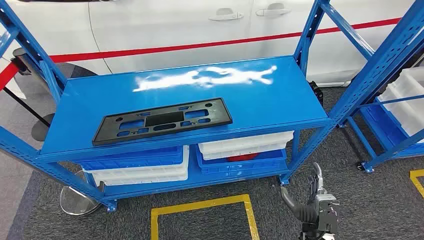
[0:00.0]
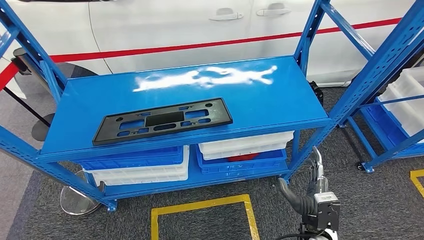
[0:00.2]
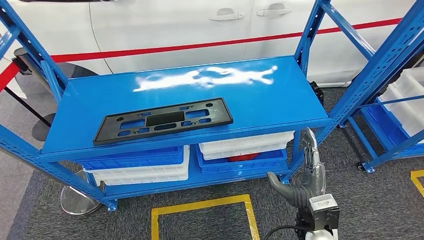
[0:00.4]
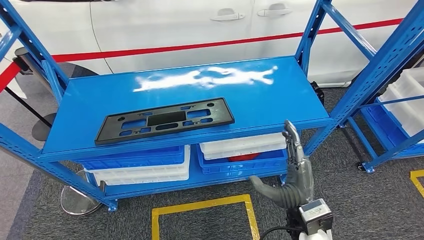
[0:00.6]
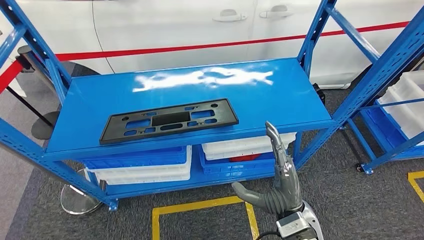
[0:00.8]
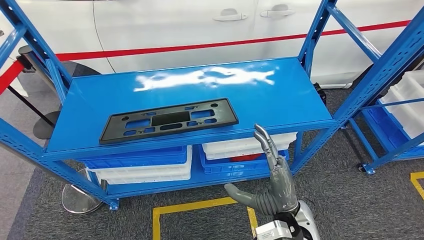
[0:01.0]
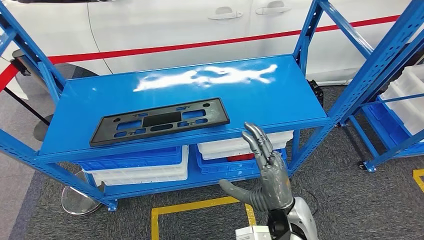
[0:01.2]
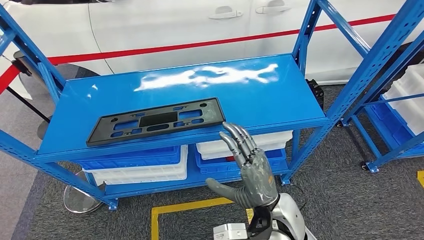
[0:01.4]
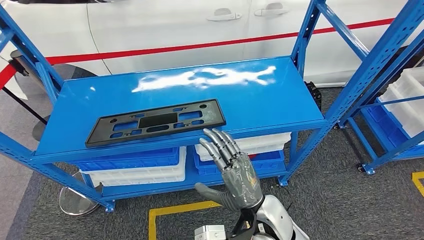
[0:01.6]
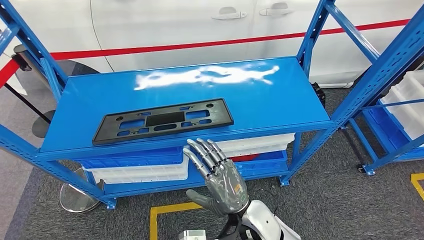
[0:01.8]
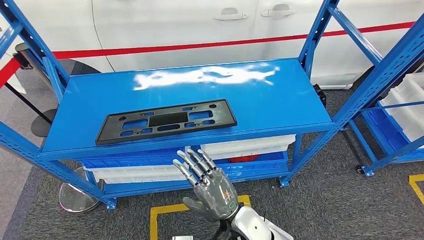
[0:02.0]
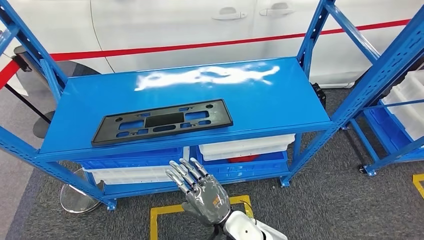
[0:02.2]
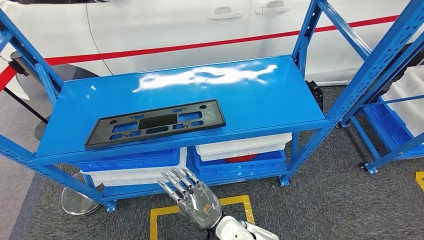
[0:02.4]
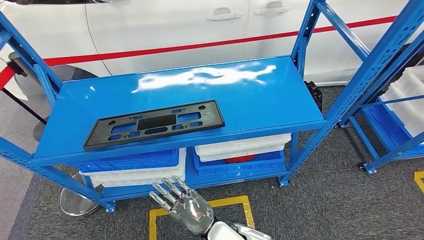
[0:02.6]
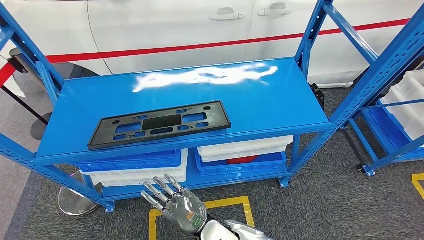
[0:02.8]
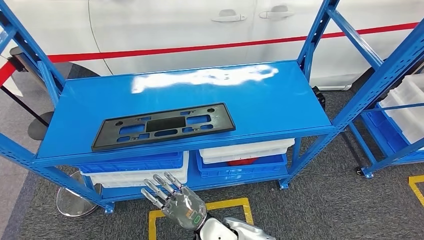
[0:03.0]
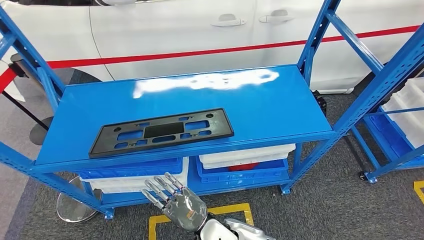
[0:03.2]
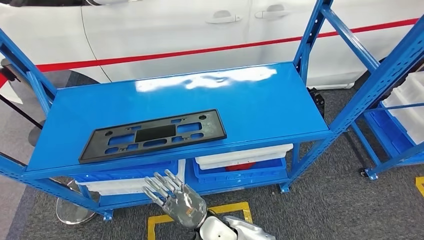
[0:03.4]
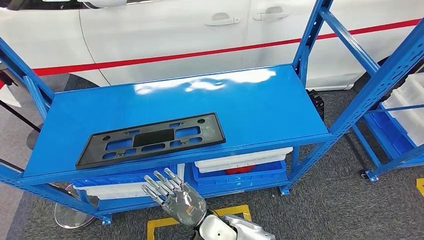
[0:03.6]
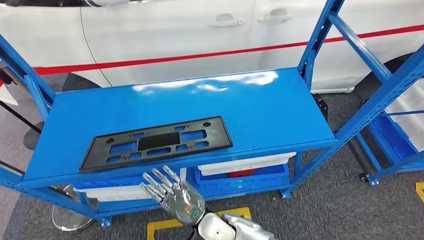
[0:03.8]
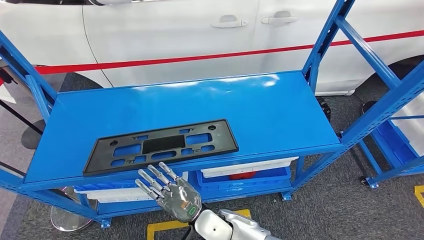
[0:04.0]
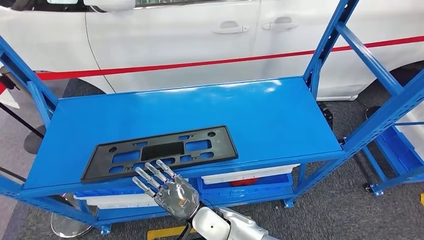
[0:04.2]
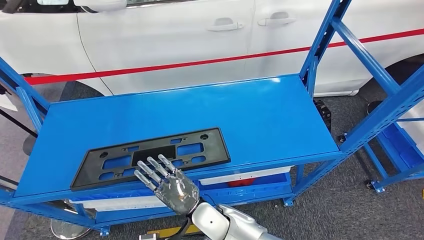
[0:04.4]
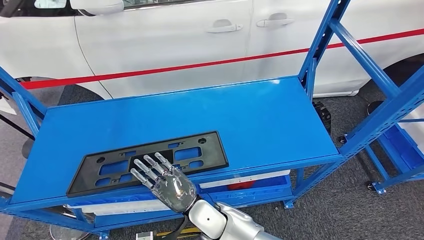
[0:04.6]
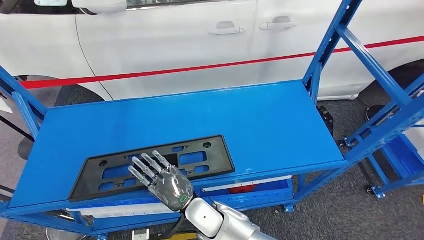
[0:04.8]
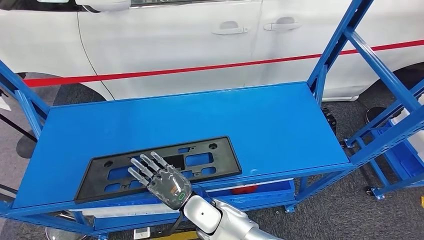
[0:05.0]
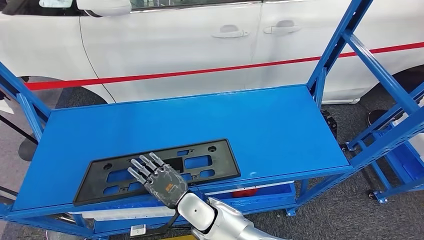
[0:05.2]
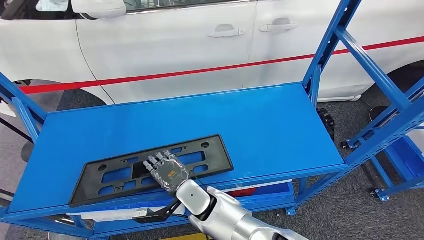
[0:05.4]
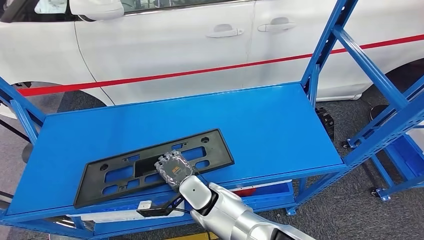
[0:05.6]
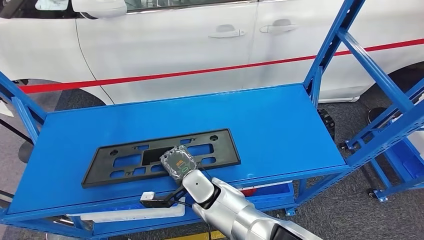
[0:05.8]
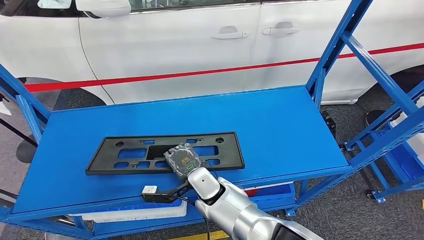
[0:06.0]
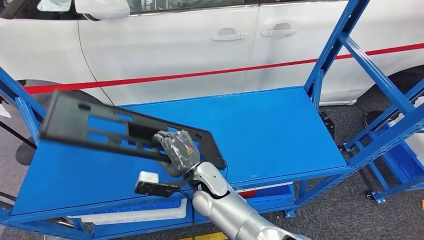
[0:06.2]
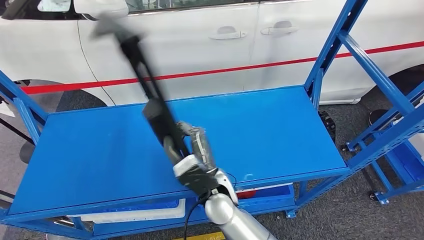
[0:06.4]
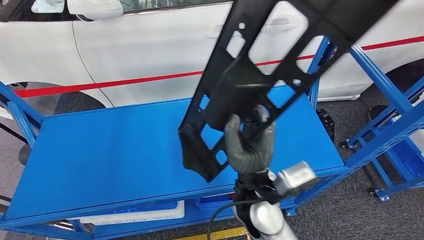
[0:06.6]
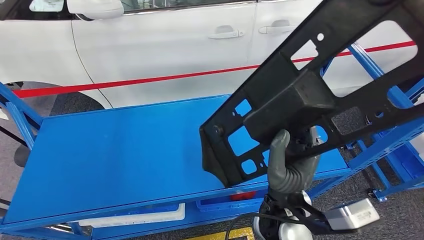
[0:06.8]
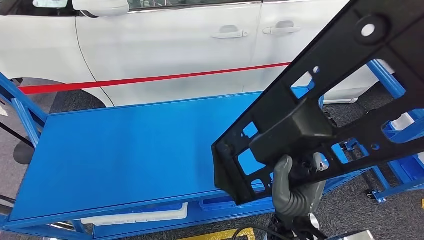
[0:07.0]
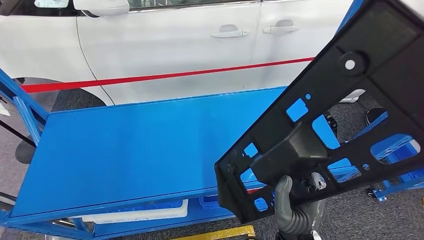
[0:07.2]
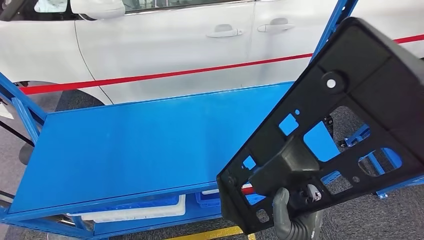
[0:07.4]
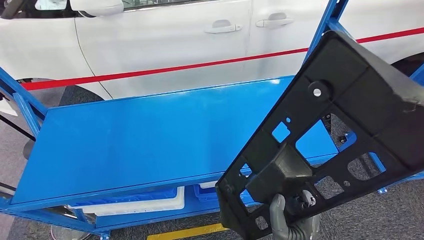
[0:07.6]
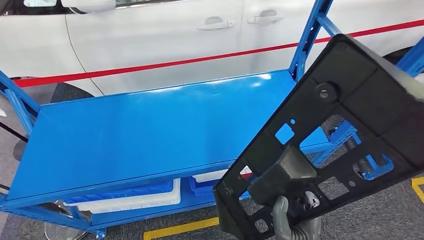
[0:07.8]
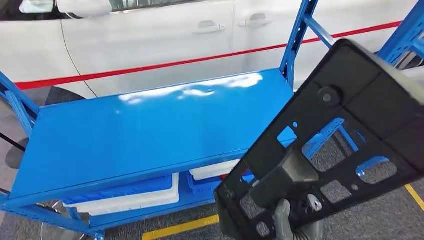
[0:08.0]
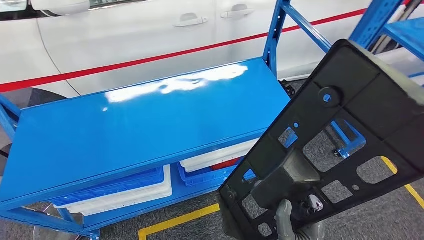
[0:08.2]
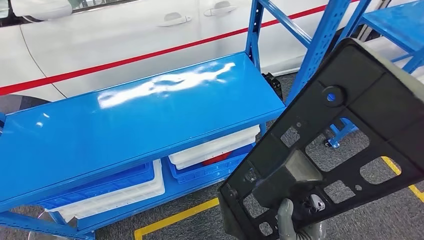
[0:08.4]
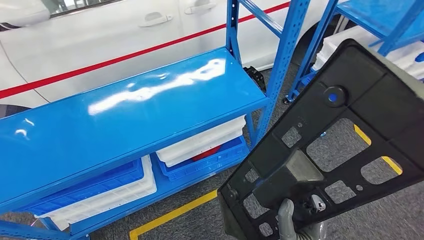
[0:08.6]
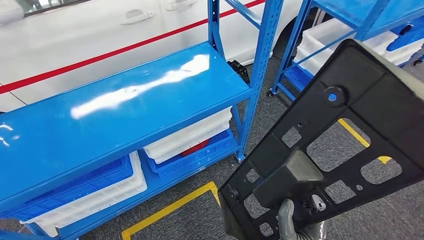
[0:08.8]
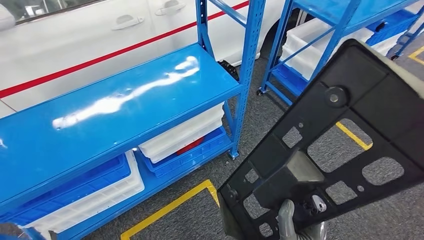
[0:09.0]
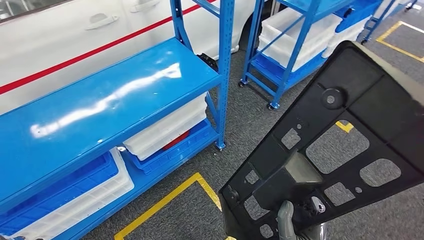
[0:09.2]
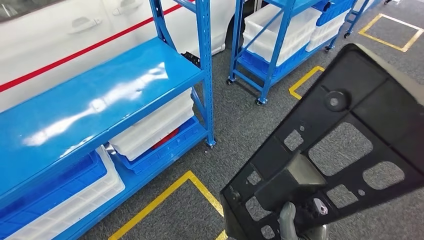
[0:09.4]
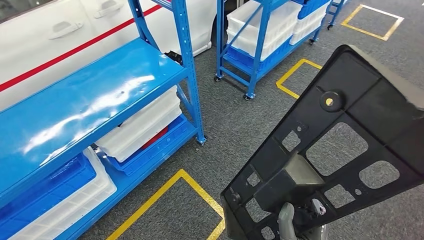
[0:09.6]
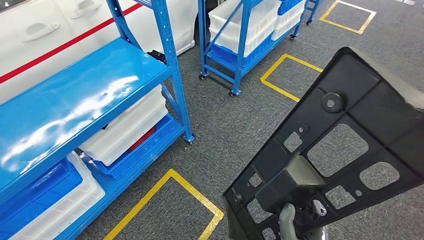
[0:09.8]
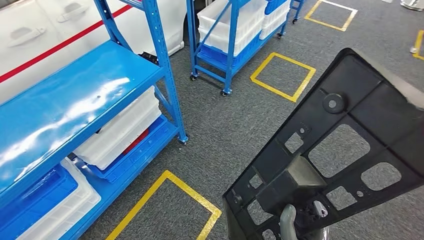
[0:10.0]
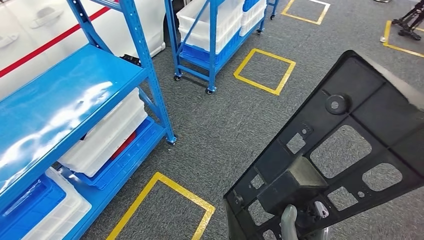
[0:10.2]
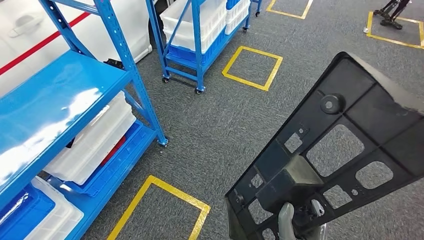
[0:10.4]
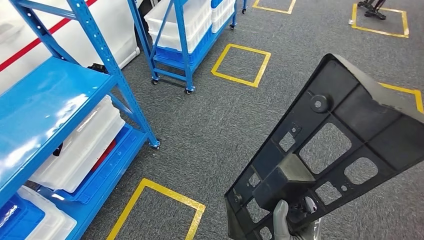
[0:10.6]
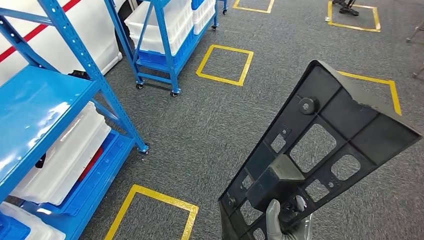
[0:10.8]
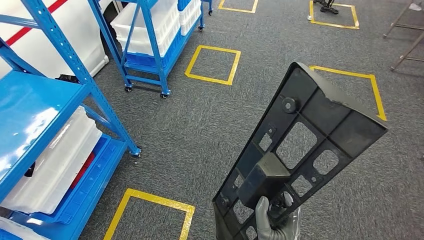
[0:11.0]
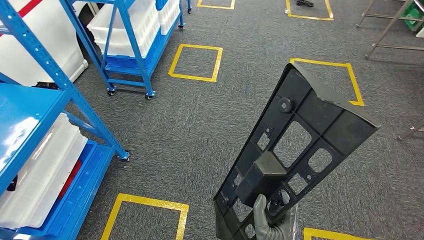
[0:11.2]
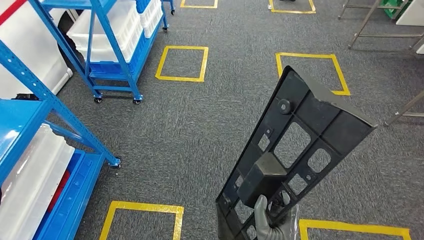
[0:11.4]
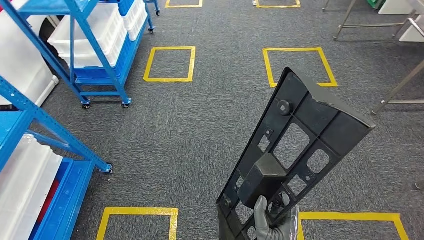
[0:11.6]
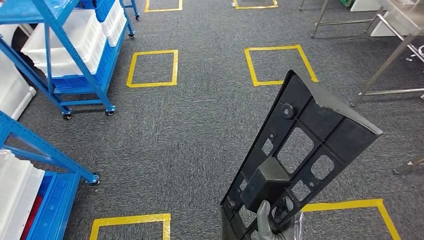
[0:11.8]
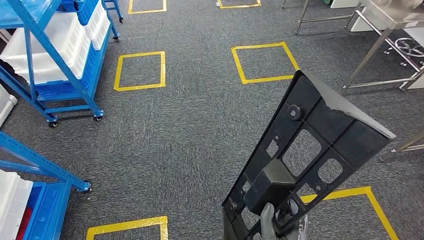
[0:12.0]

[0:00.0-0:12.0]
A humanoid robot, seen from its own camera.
Step, 0:00.0 to 0:07.2: Pick up the large material from the shelf.

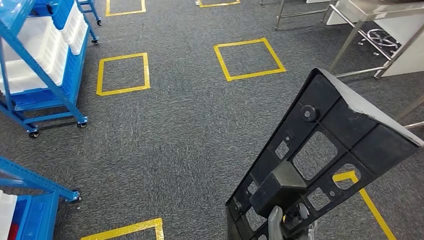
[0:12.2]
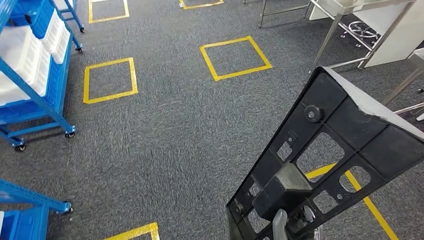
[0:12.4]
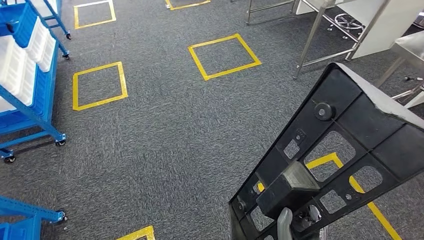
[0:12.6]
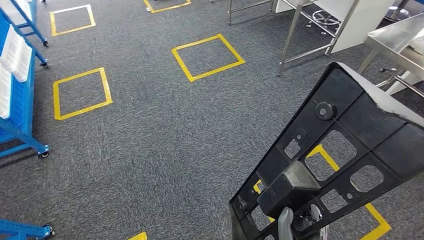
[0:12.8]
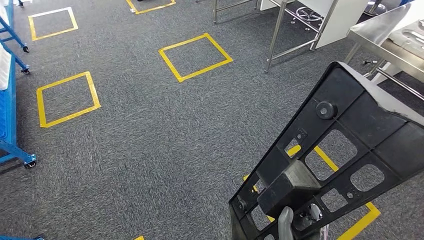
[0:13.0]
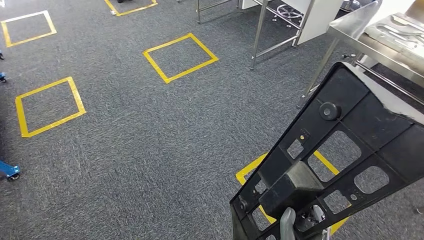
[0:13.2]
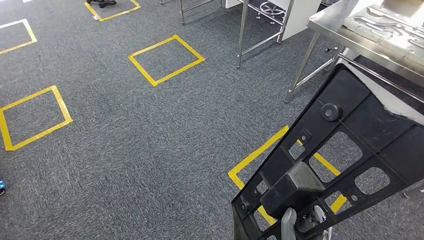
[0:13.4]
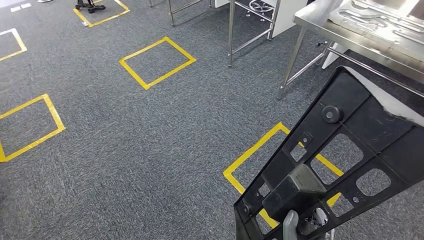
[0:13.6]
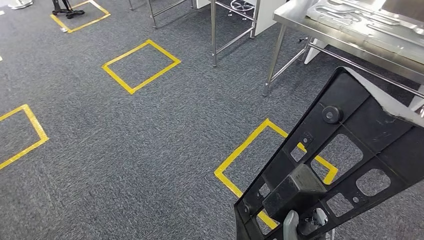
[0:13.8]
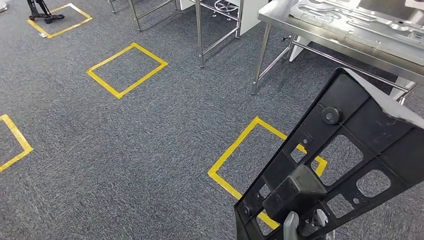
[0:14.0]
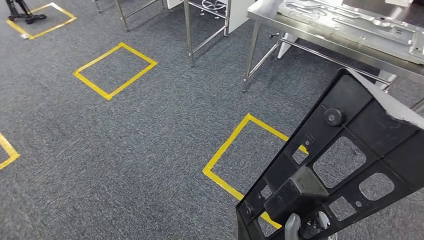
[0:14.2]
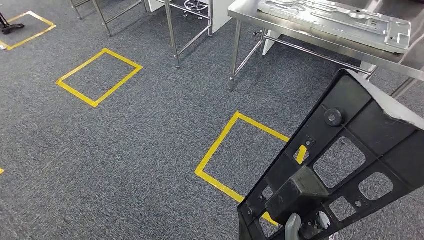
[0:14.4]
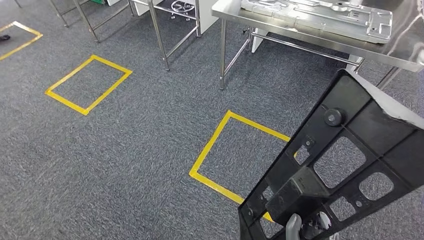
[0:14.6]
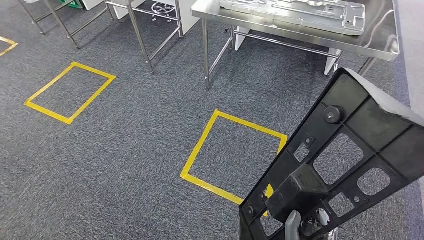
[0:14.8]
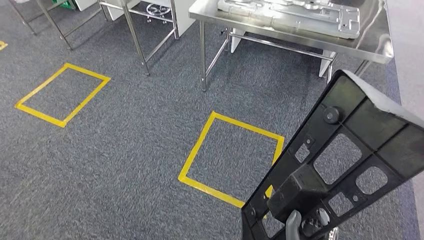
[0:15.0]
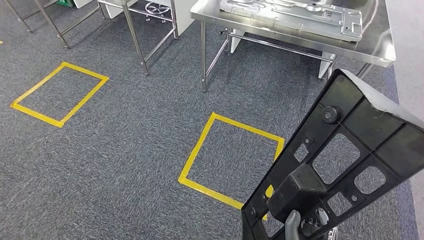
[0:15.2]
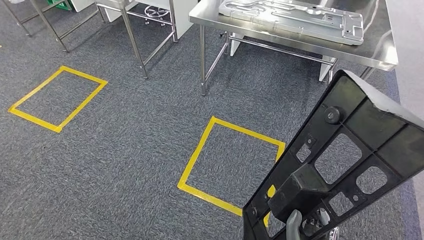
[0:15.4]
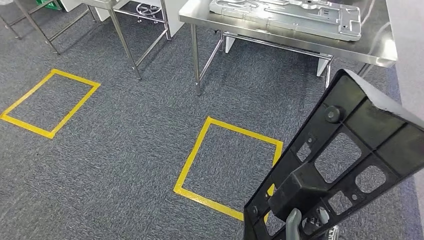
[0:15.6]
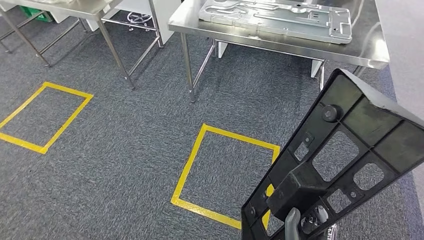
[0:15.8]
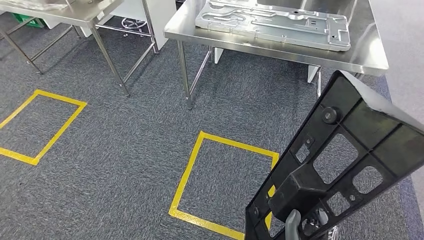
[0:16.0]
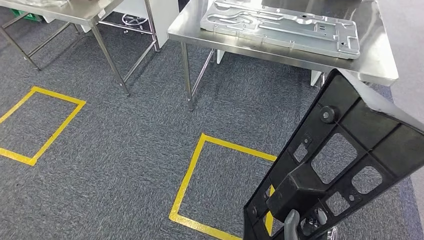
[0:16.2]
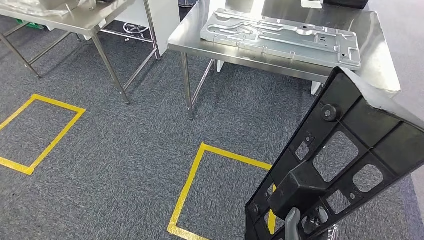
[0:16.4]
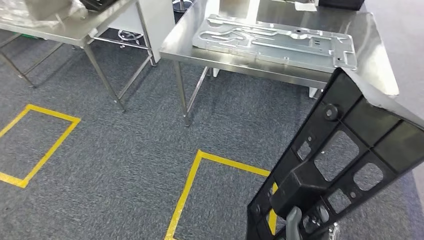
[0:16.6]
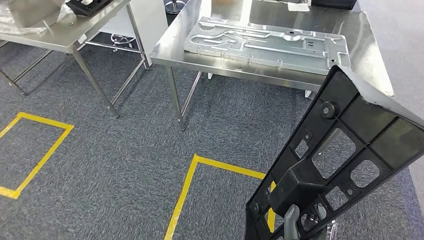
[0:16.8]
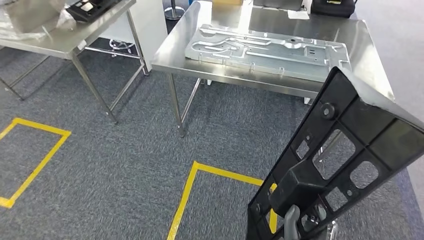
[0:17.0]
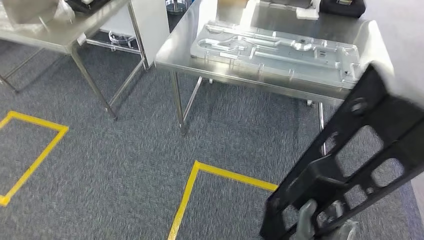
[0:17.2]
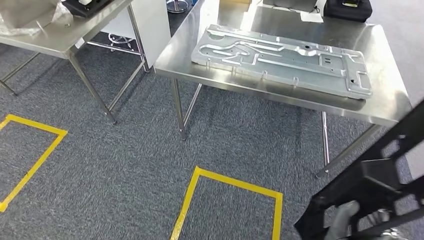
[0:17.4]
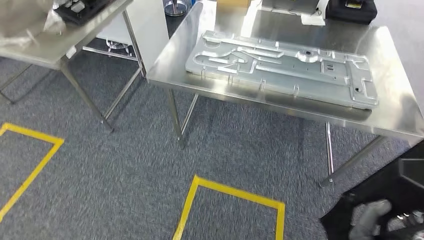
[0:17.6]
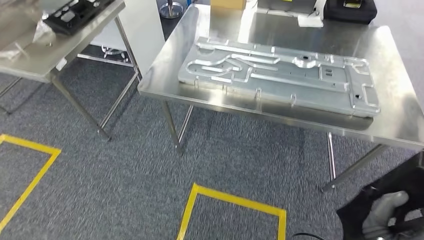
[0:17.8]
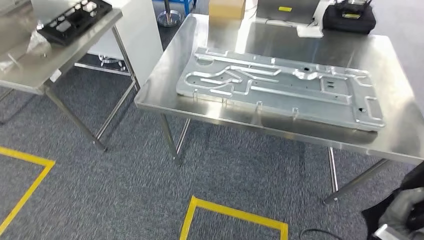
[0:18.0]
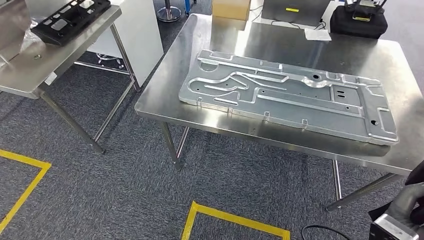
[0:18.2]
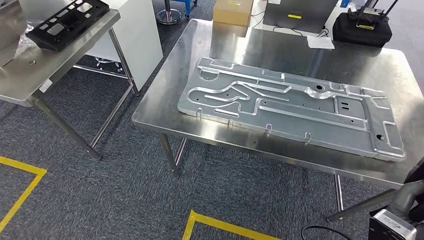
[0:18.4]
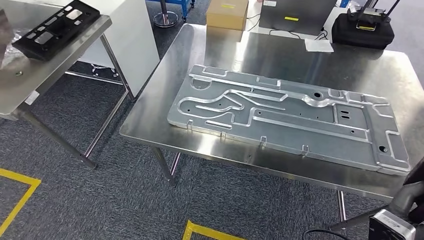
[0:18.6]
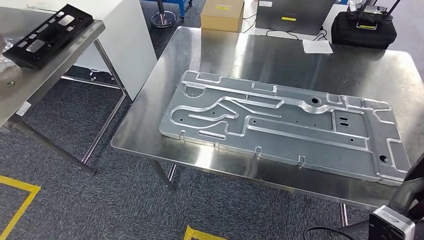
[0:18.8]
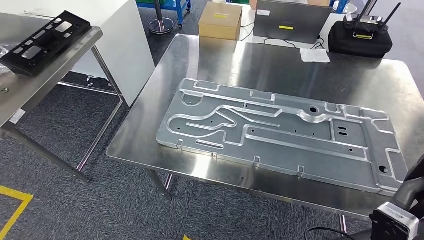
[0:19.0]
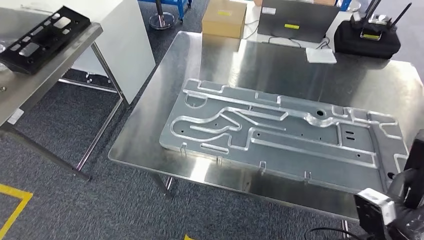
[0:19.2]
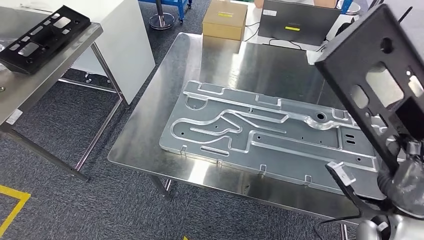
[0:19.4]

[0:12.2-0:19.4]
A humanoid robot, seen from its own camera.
Step, 0:12.2 to 0:19.2: Move the large material to the workbench.
